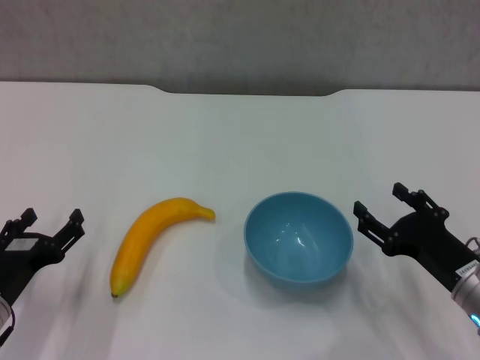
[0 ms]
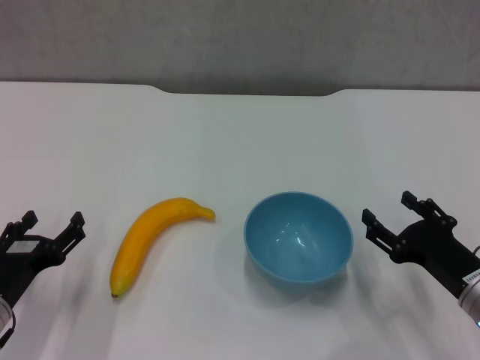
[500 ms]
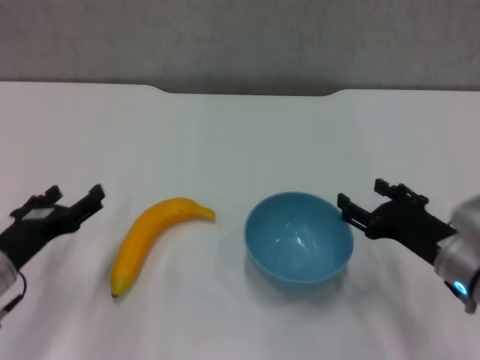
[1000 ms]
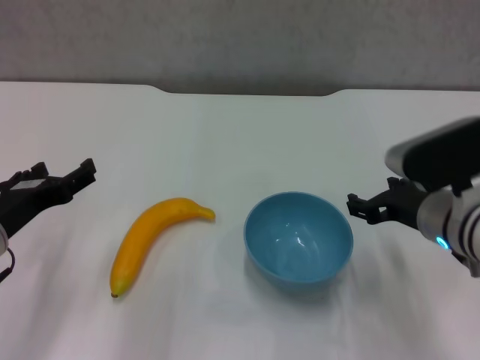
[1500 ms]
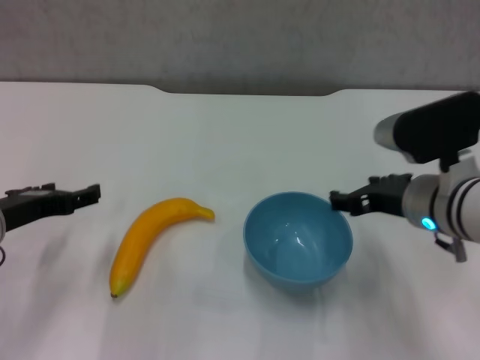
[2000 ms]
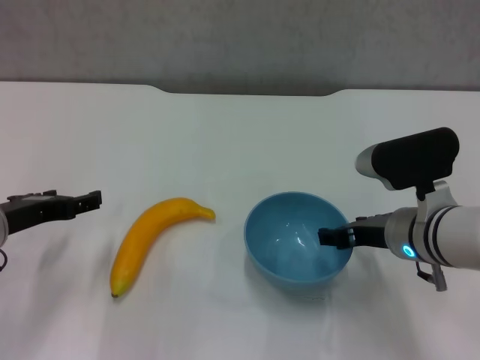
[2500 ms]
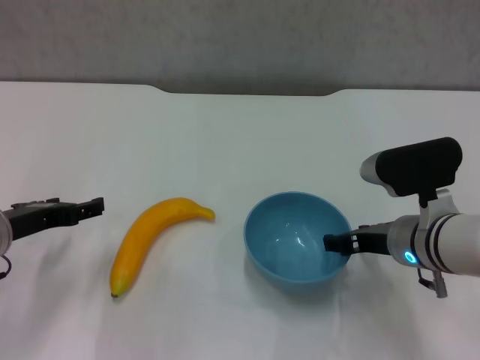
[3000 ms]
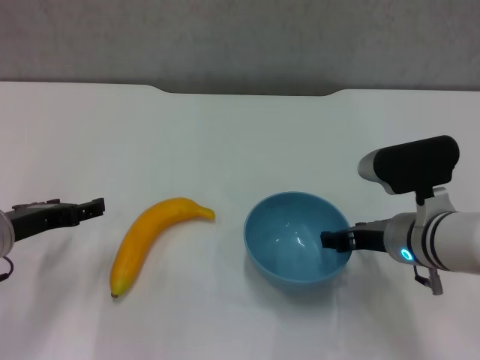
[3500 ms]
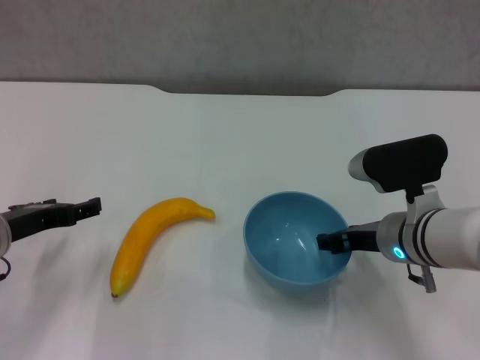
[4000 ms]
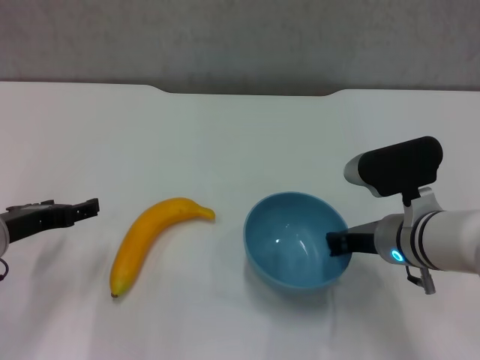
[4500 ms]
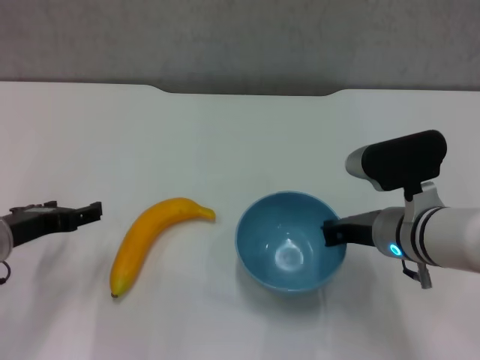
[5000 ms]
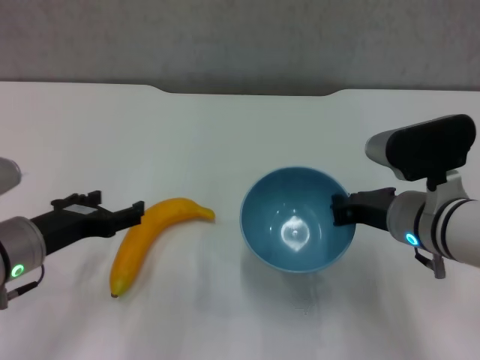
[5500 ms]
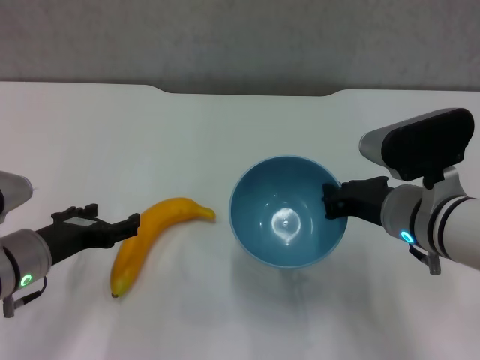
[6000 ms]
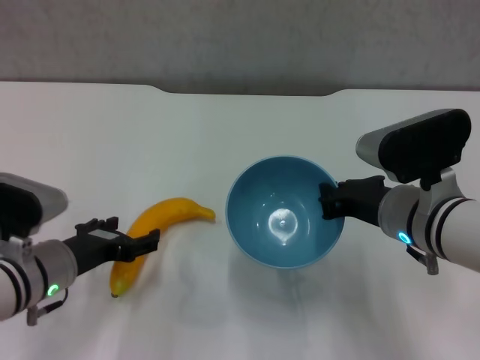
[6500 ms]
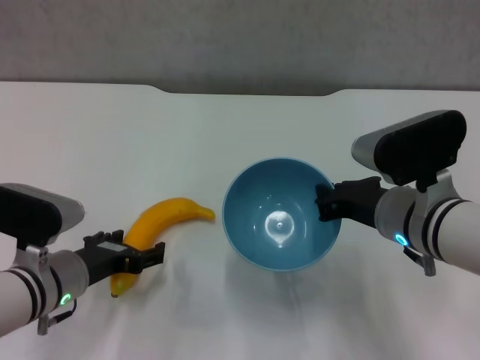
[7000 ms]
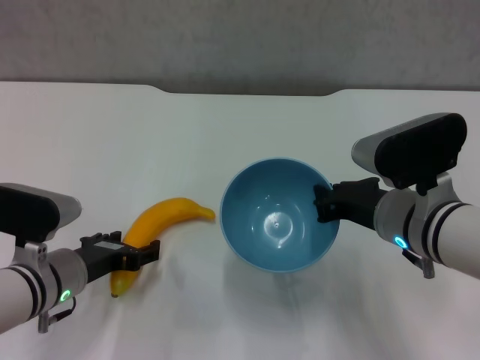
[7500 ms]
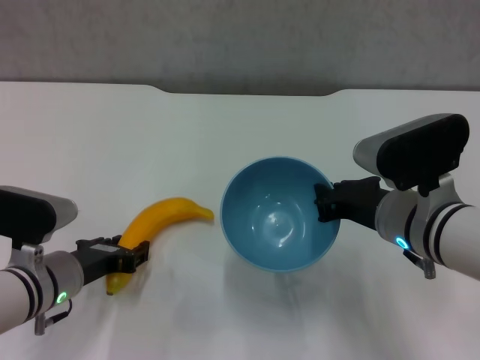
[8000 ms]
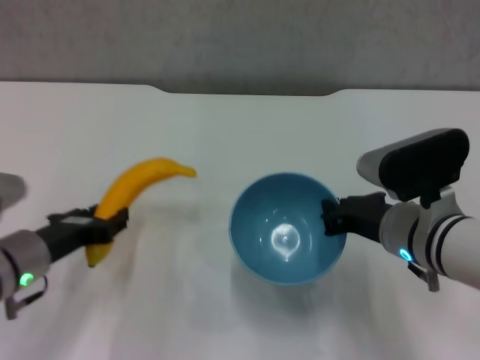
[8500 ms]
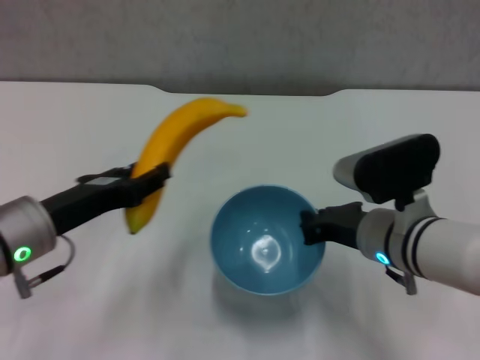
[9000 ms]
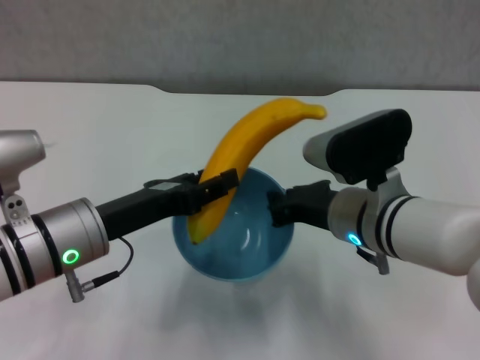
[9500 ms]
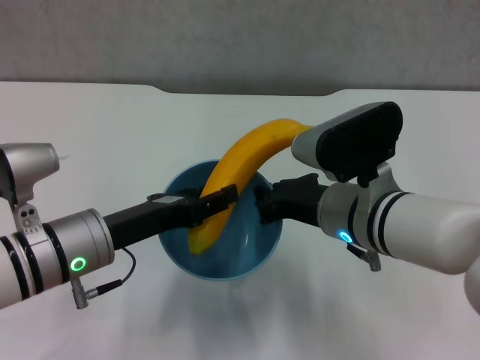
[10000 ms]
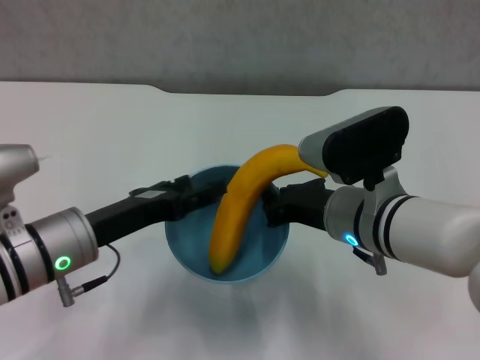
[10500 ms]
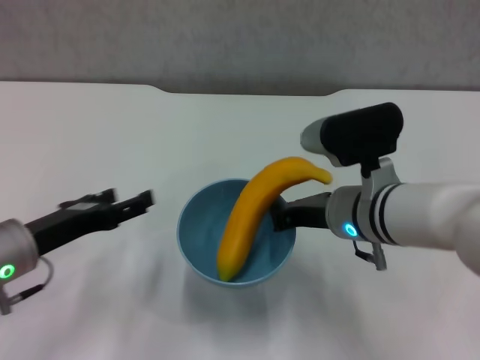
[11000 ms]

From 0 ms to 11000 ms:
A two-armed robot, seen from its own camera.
Step, from 0 ms to 4500 ms: Grasp the blue bowl with right gripper.
Step, from 5000 ms to 5500 ms: Lift the blue bowl with right gripper.
Step, from 6000 ms to 7500 ms: Grasp the banana with left gripper.
Step, from 8000 ms to 10000 ms: Place the banana in the blue bowl with left gripper.
From 0 ms to 2000 ms: The left gripper moves upward and forward, roughly 10 cm, while the right gripper is displaced upward, forward and to the left by about 15 cm.
From 2000 ms to 3500 ms: The right gripper shifts by about 5 cm.
From 3500 ms to 5500 ms: The right gripper closes up.
From 5500 ms to 7500 ms: The left gripper goes some 5 cm downward.
From 7500 ms to 9000 ms: The left gripper travels upward by some 10 cm, and closes.
From 9000 ms to 11000 ms: The left gripper shifts by roughly 5 cm, and opens its fingers.

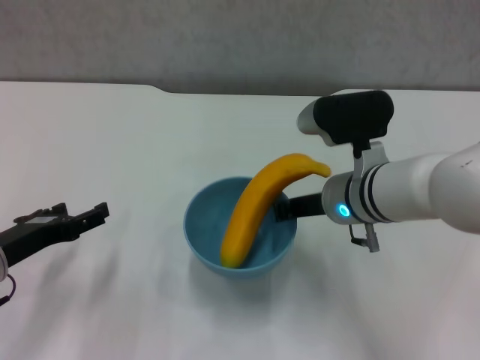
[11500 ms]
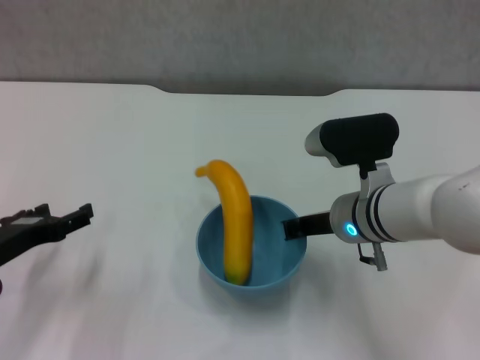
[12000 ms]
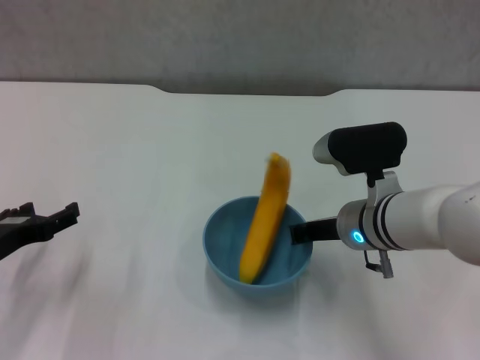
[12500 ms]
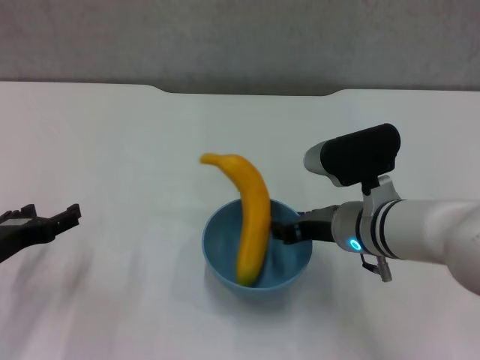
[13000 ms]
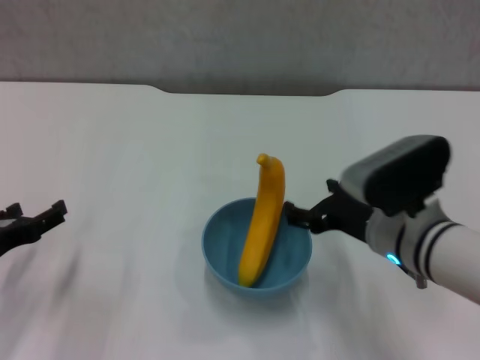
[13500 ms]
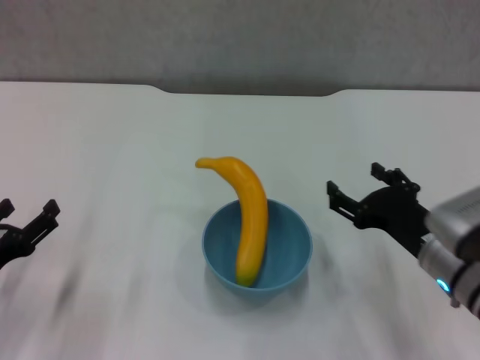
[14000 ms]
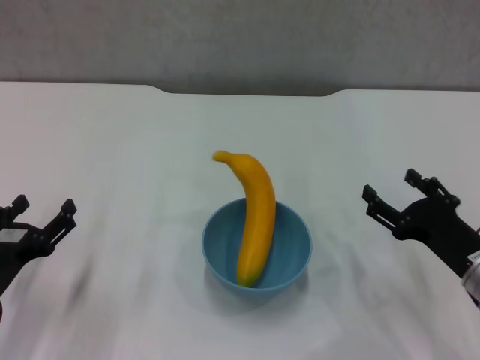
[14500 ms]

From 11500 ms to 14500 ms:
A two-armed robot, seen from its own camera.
Step, from 11500 ms to 13500 ms: Place the bowl on the table with right gripper.
From 13000 ms to 14500 ms: The left gripper changes place by roughly 5 cm; the right gripper shifts roughly 15 cm to the right and backward, and opens up.
